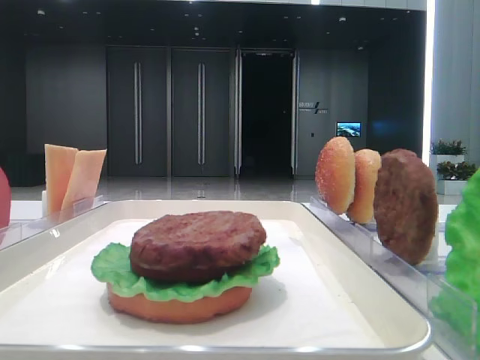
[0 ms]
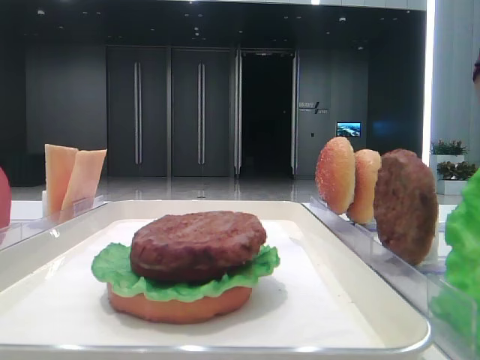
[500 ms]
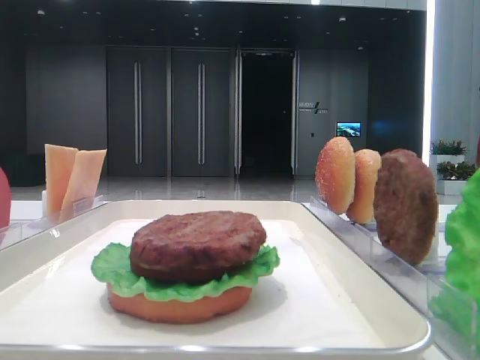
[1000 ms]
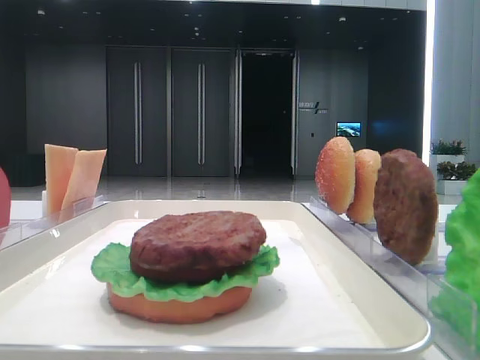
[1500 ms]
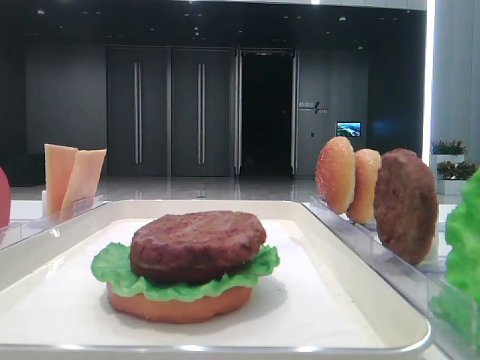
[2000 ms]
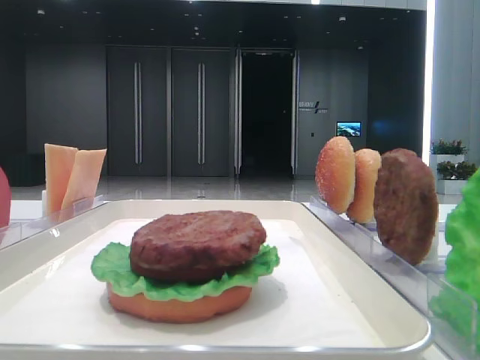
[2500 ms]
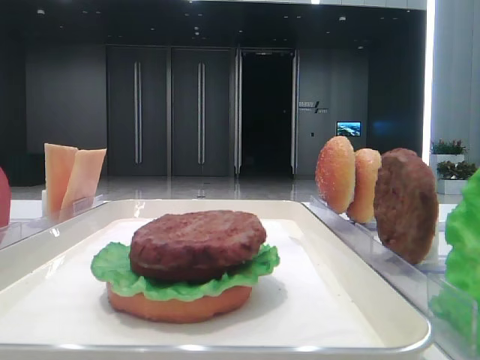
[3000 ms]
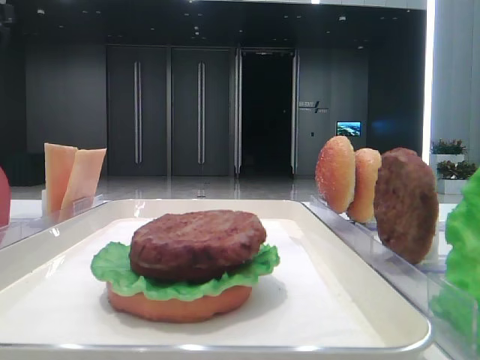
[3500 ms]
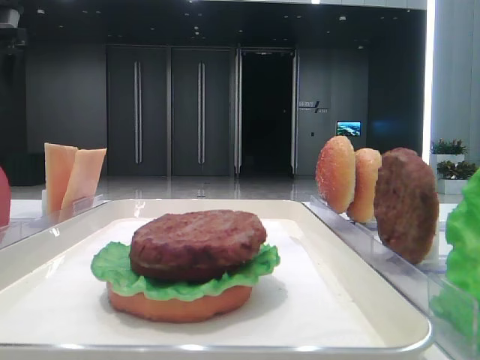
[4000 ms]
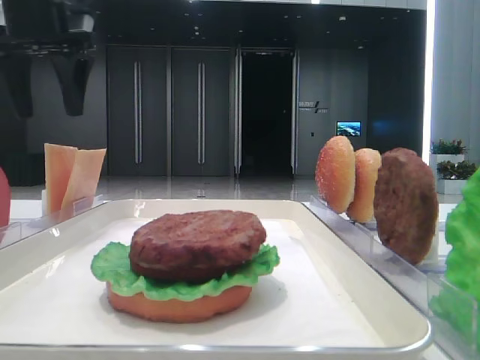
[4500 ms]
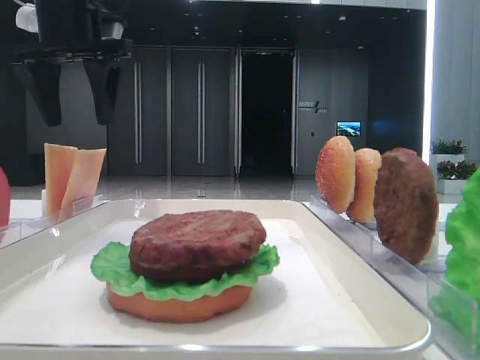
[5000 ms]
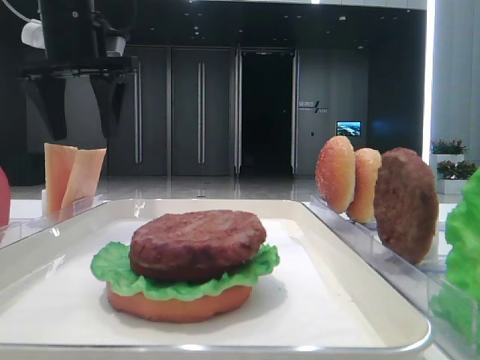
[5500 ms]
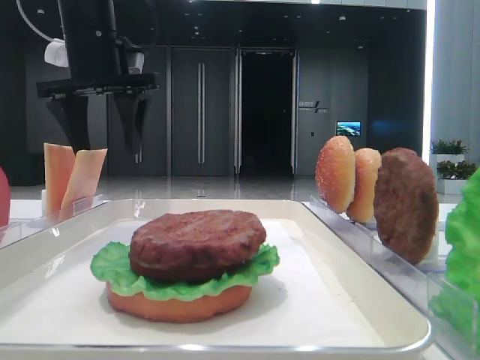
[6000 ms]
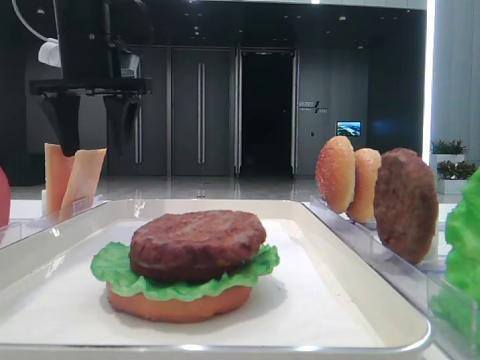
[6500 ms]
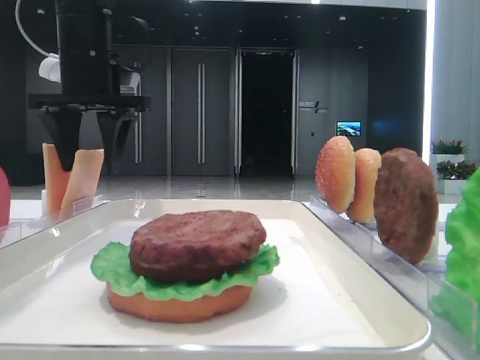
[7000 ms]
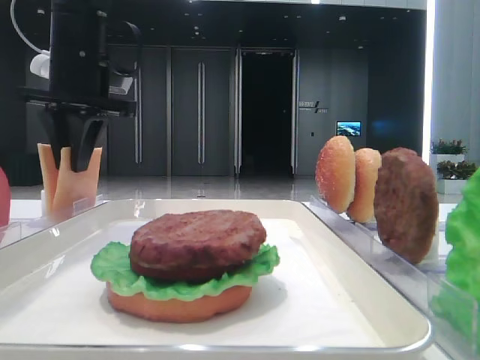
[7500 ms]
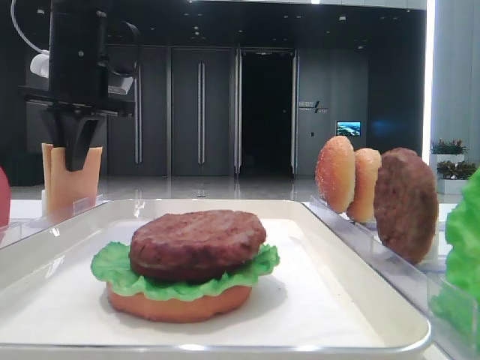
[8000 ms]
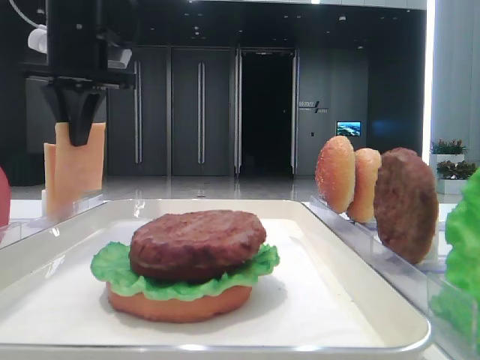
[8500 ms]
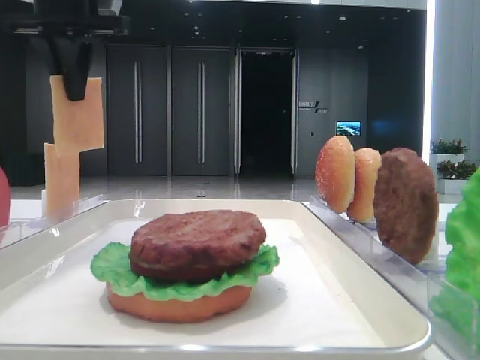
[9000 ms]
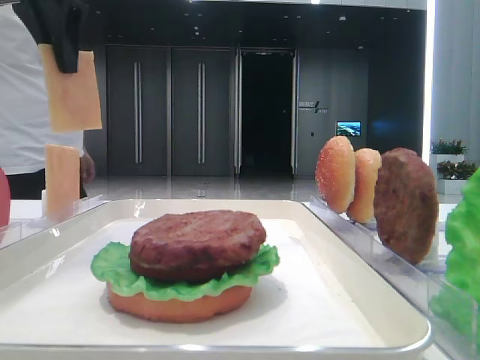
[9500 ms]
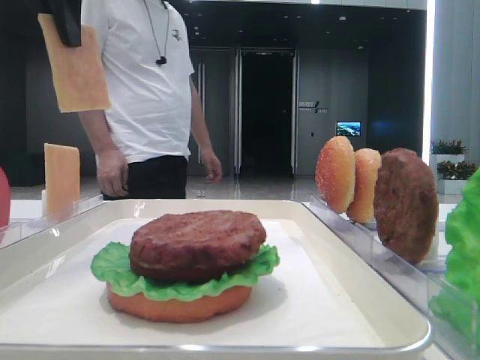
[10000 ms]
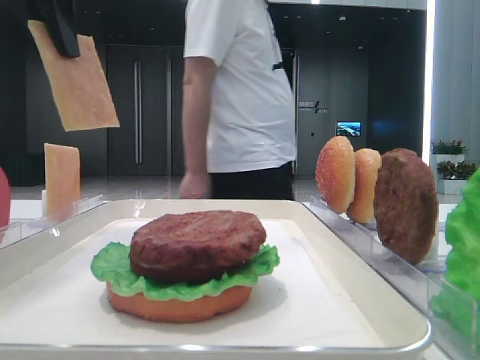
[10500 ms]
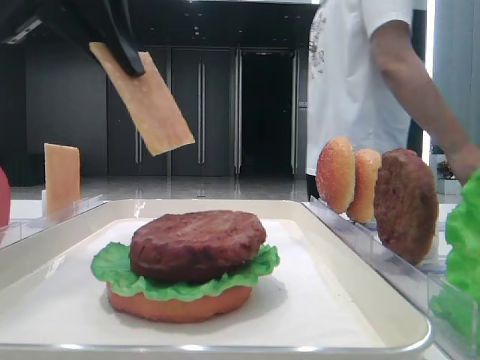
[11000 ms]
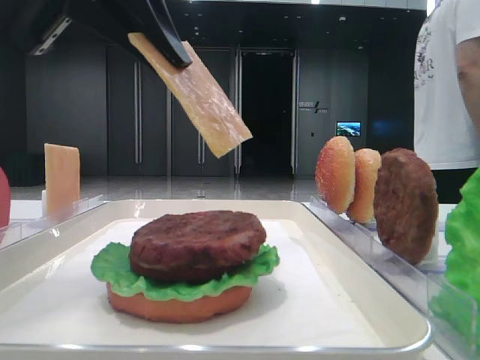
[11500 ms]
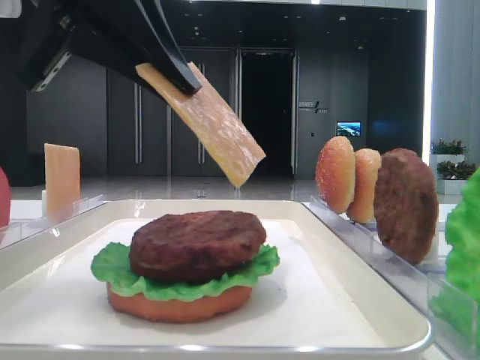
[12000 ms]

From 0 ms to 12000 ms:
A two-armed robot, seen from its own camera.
Step, from 0 ms to 8000 ms: Pick up the cheese slice with the left hand.
From 2000 ms to 4000 ms: The left gripper is displaced forward by roughly 35 cm.
From 4000 ms to 6000 ms: The left gripper travels to the right by about 15 cm.
From 6000 ms to 8000 ms: The left gripper closes.
From 8000 ms to 10000 ms: The left gripper goes approximately 15 cm upward and backward.
From 10000 ms to 12000 ms: The left gripper moves backward, downward and to the right, roughly 15 cm.

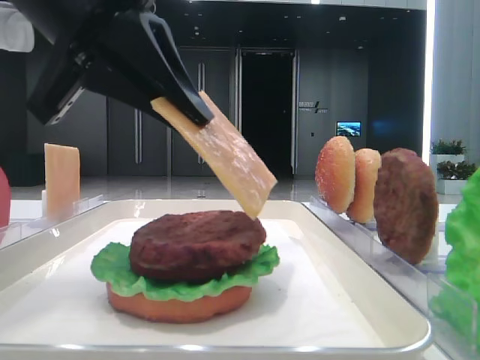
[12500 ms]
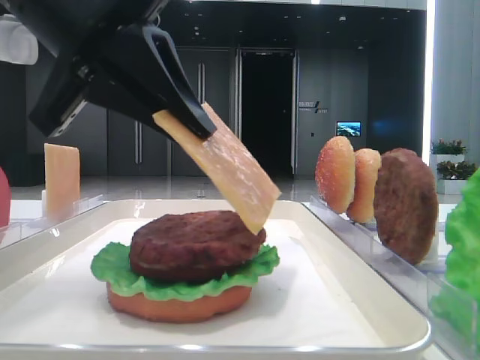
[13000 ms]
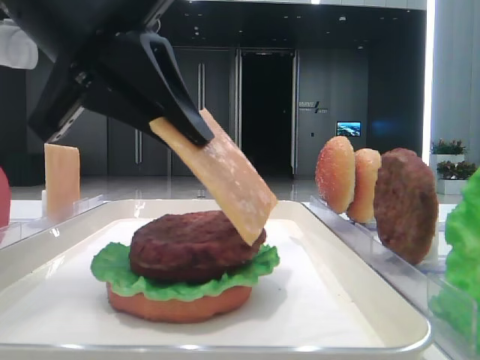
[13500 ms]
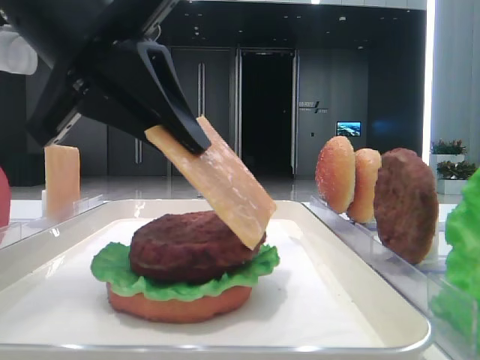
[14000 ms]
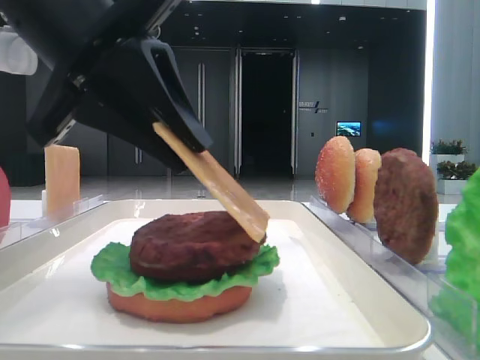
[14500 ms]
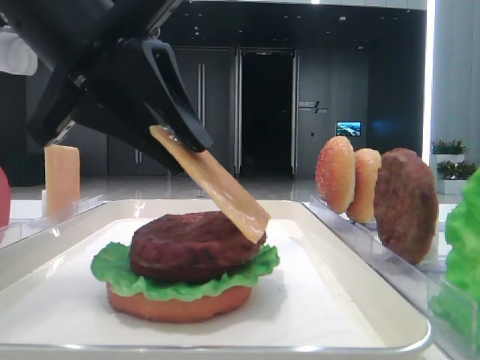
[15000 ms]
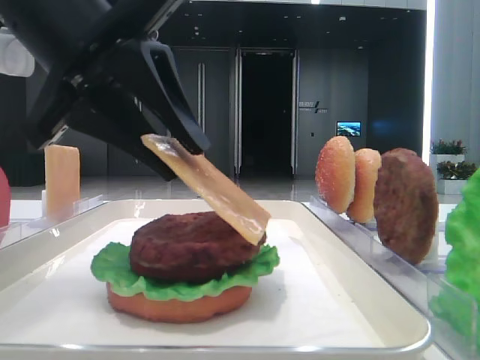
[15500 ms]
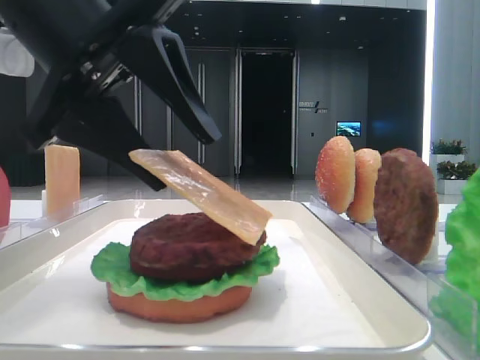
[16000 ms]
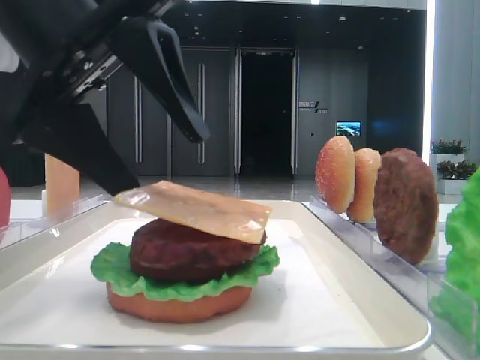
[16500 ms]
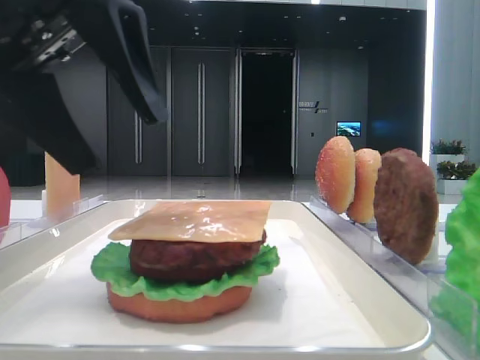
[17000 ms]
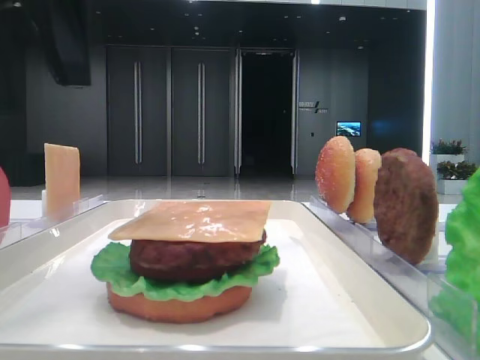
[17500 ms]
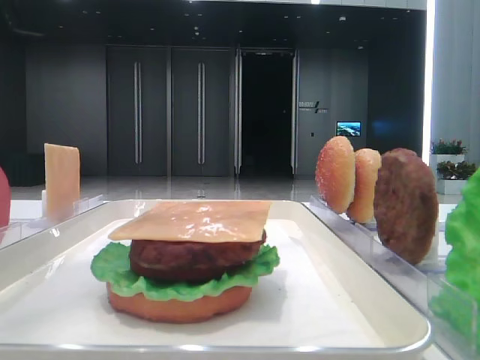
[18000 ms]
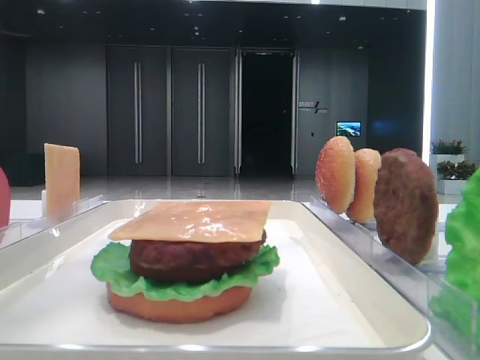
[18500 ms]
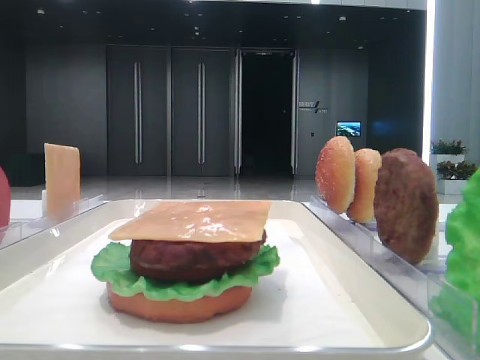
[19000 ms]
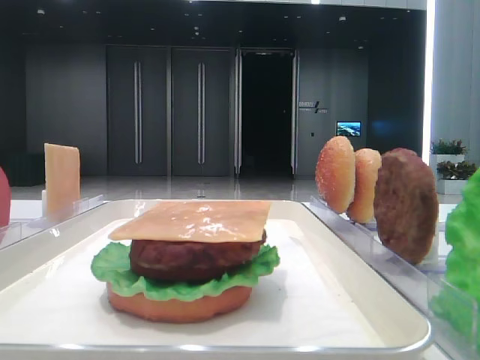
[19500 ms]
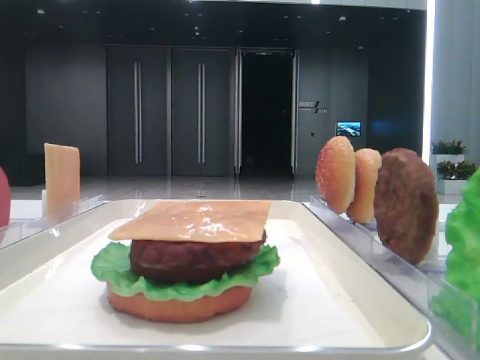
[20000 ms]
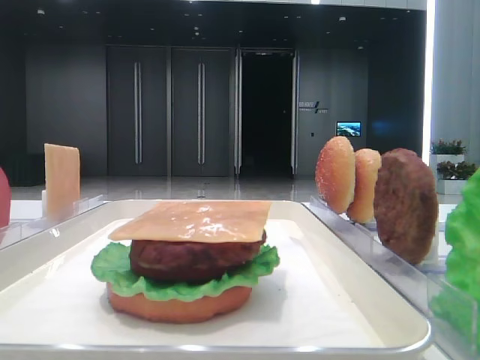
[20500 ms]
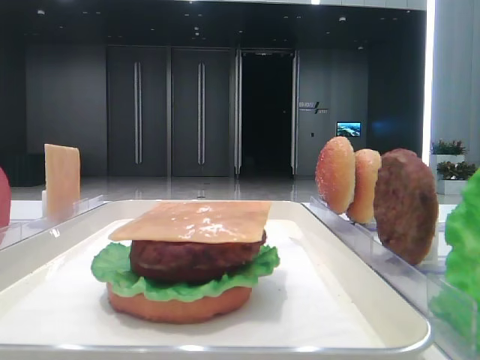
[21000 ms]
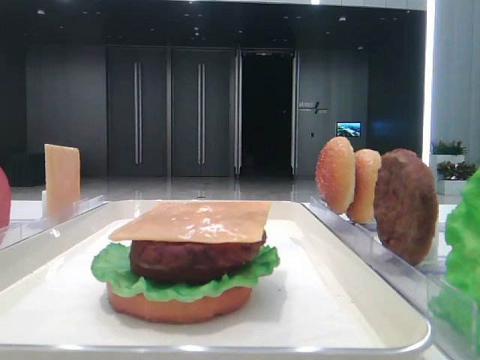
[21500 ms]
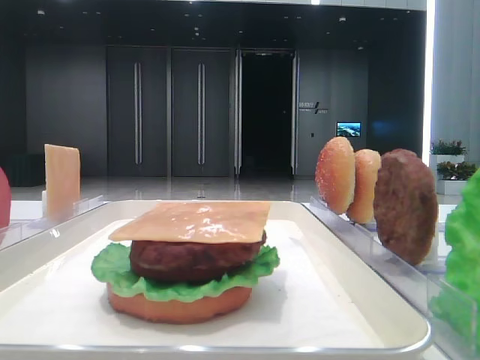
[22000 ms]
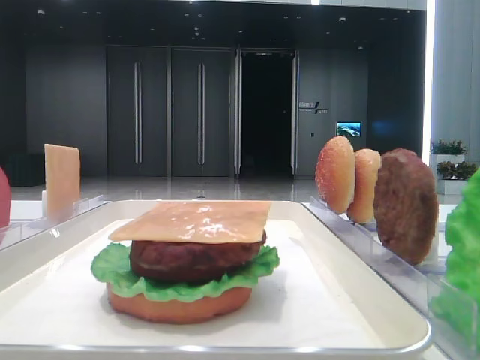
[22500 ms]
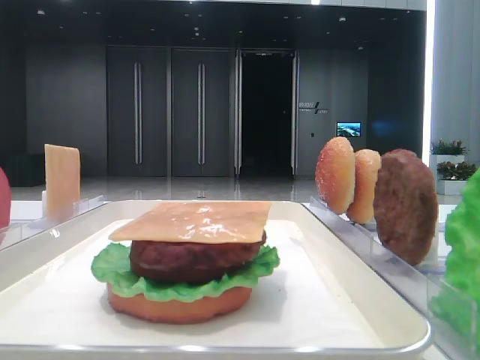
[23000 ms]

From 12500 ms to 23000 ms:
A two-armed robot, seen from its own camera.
Step, from 12500 ms to 16500 ms: Place the cheese slice on the patty with the left hand.
From 12500 ms to 14500 ms: The grippers move only a little.
From 14500 ms to 16500 ms: The left gripper opens.
From 16500 ms to 19000 ms: The left gripper shifts approximately 20 cm to the left and upward.

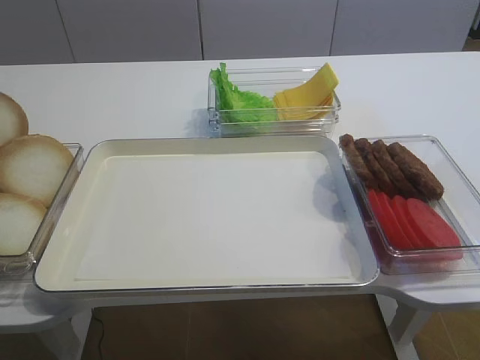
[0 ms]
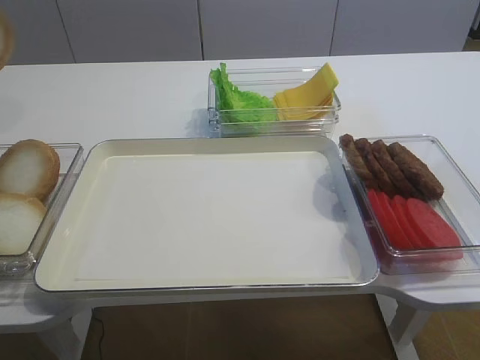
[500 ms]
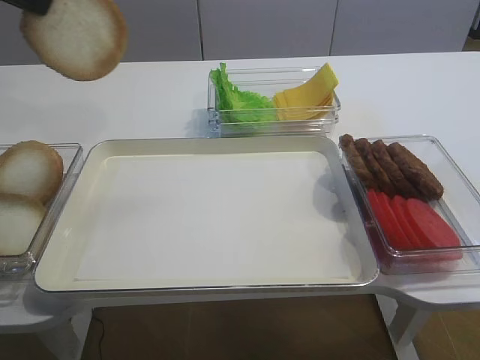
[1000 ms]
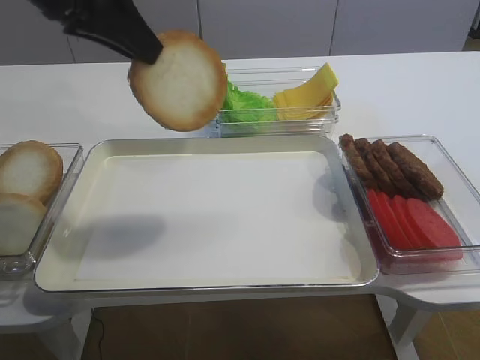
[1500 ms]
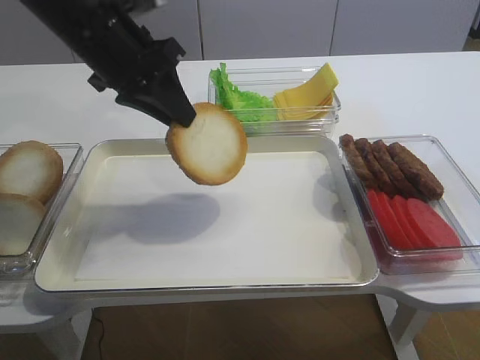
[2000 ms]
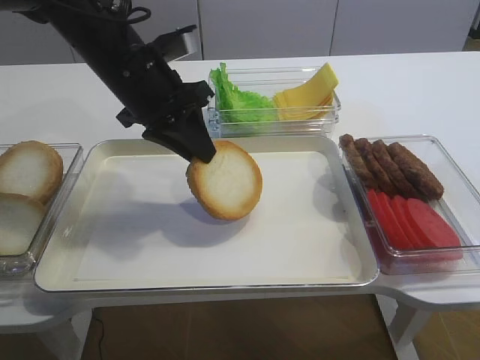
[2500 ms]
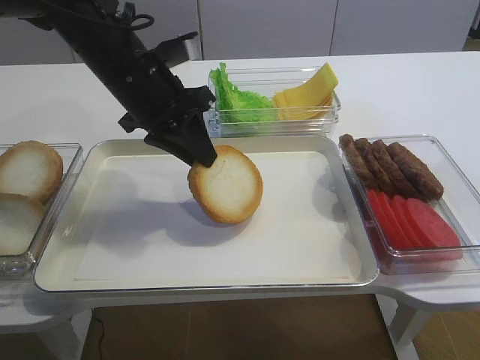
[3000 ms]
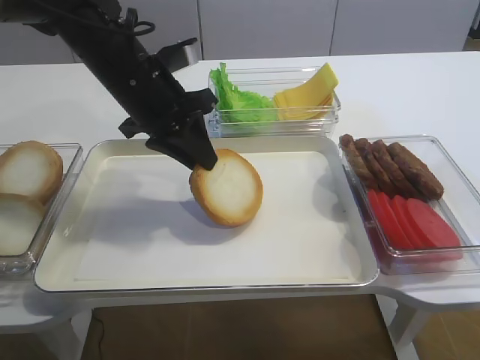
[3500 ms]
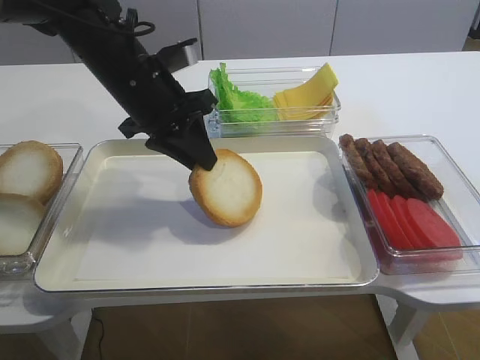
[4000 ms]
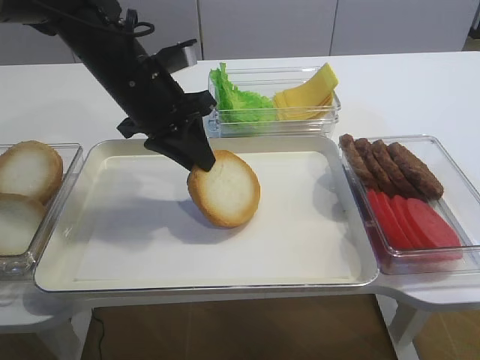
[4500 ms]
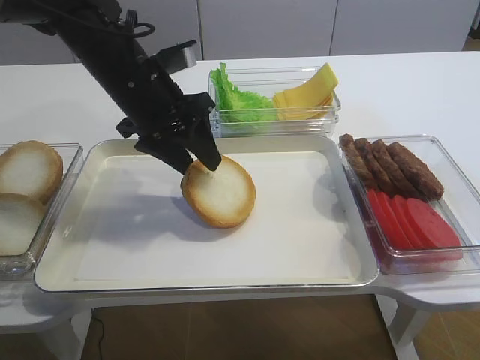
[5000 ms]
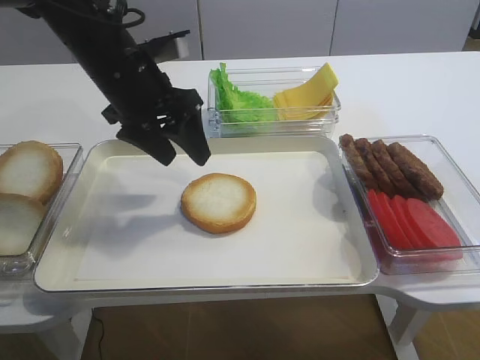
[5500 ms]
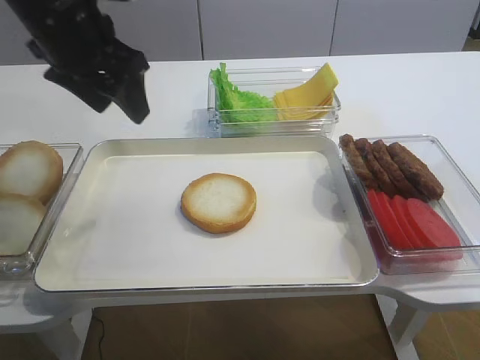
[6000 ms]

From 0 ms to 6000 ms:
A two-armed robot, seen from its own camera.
Step, from 1000 ms to 5500 ms: Place the bread slice on the tray with the left gripper.
From 0 ms to 2000 ms: The left gripper moves to the right and downward, some 25 cm.
From 2000 ms to 4000 ms: The grippers stay close to where they were, moving slightly.
From 4000 ms to 6000 ms: The left gripper is displaced upward, to the left and backward by approximately 20 cm, and opens up.
